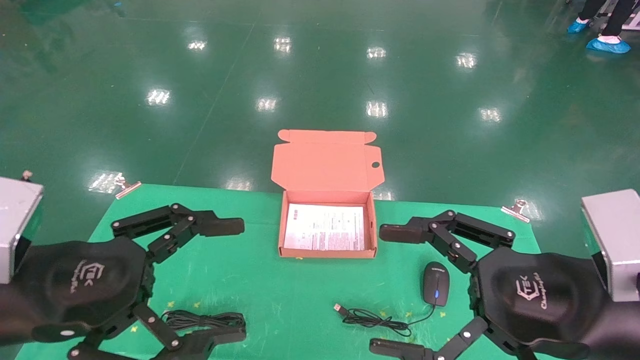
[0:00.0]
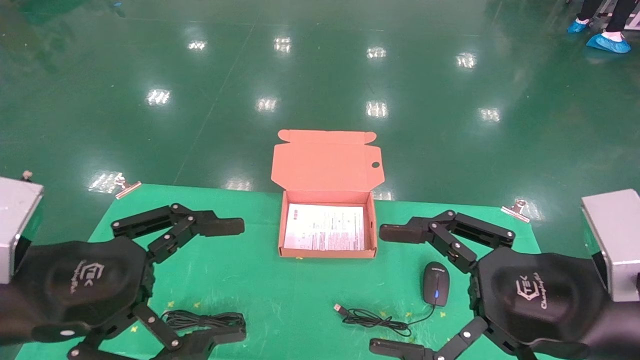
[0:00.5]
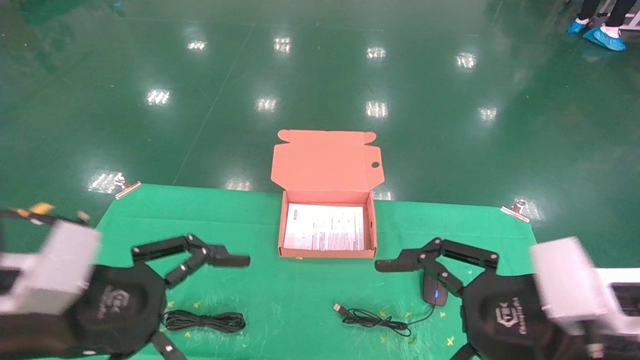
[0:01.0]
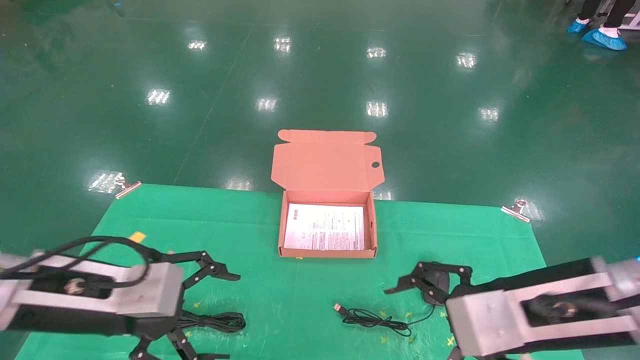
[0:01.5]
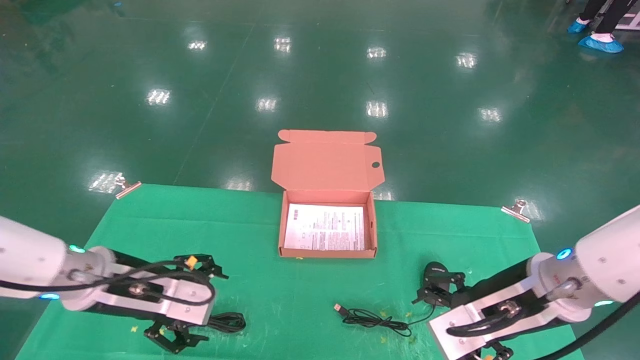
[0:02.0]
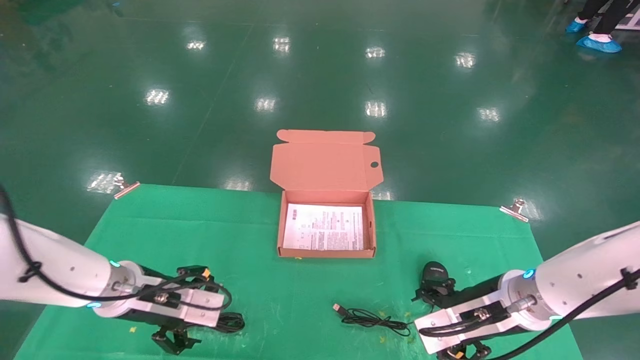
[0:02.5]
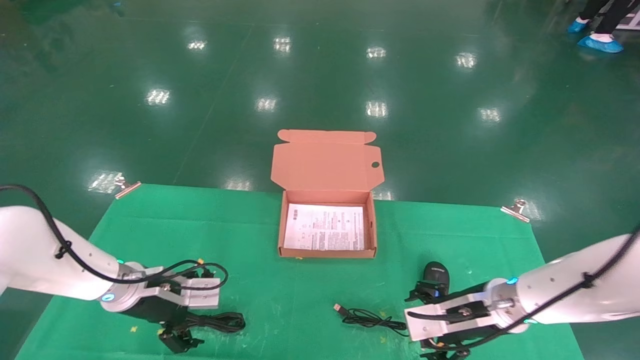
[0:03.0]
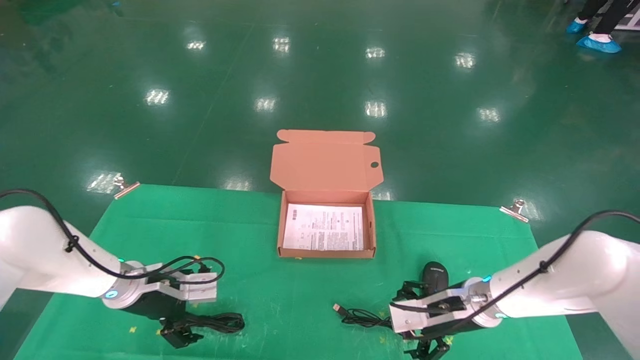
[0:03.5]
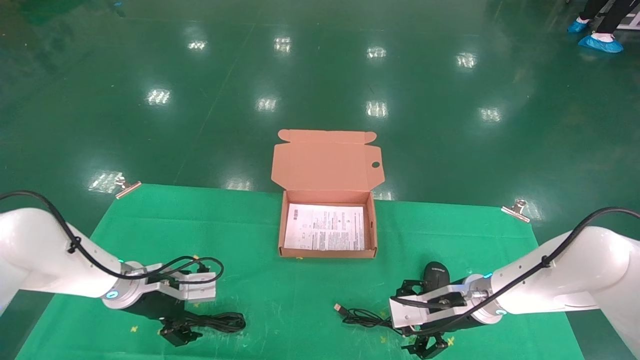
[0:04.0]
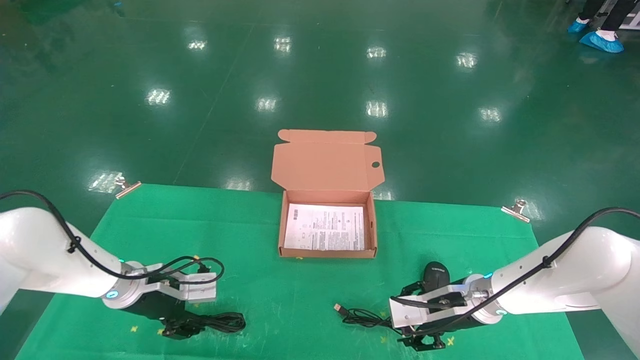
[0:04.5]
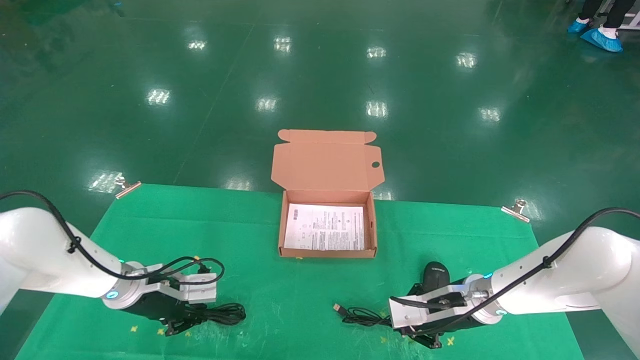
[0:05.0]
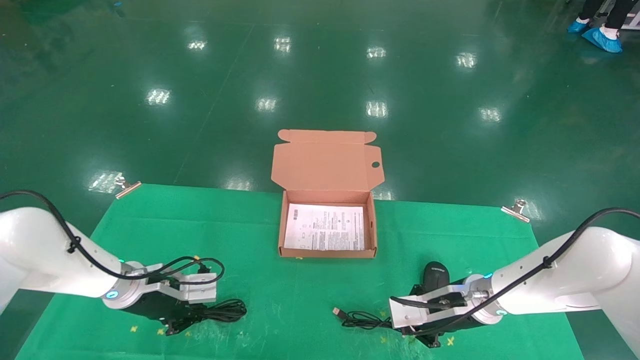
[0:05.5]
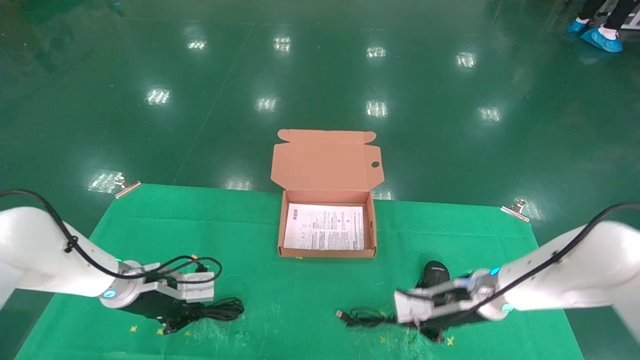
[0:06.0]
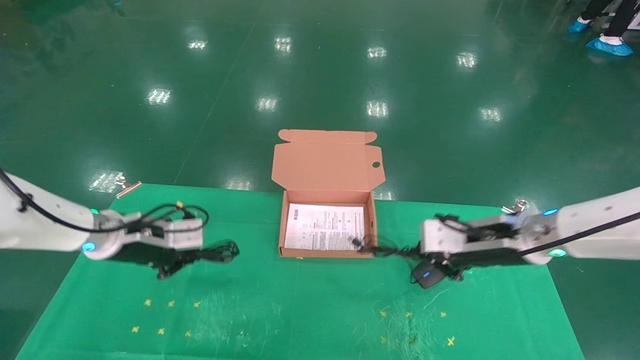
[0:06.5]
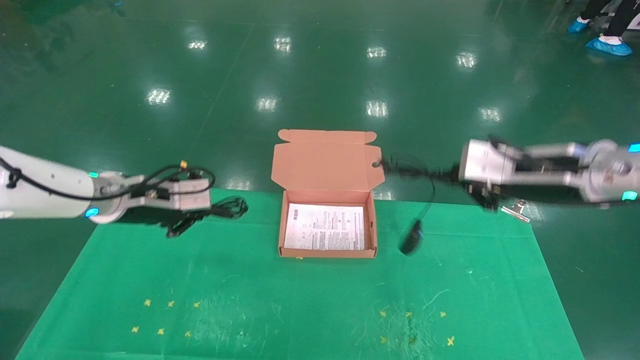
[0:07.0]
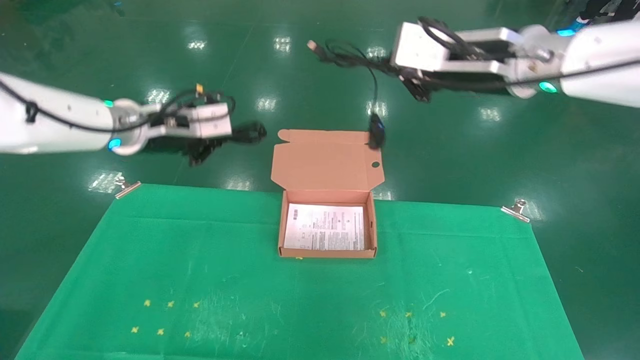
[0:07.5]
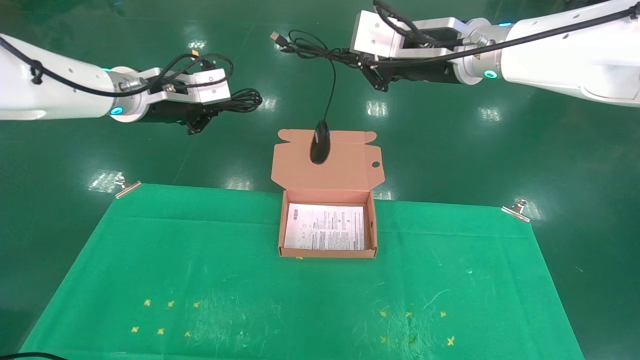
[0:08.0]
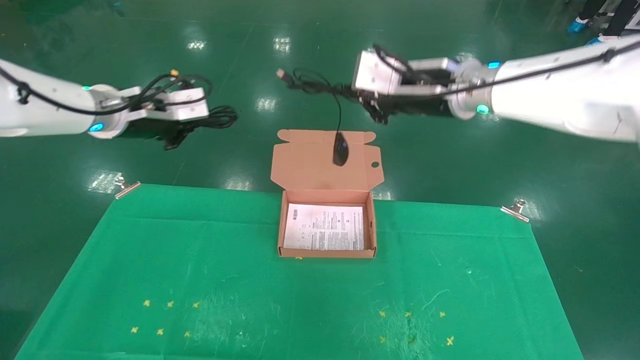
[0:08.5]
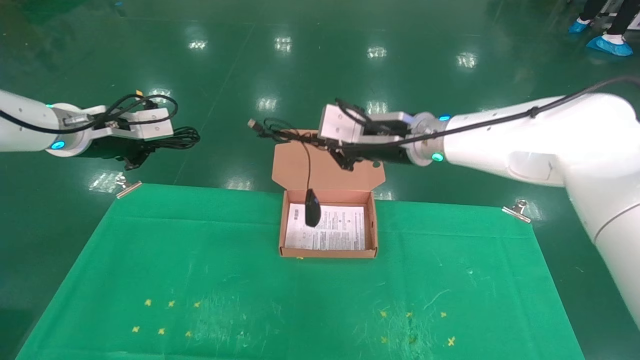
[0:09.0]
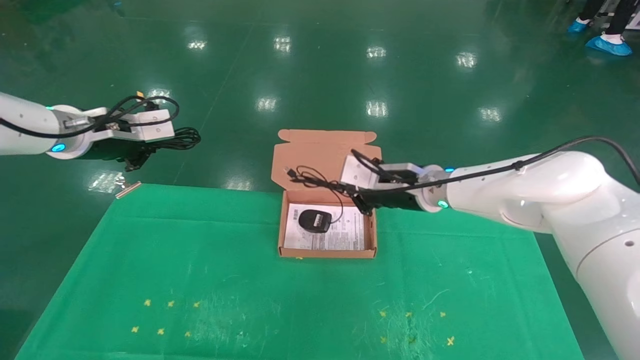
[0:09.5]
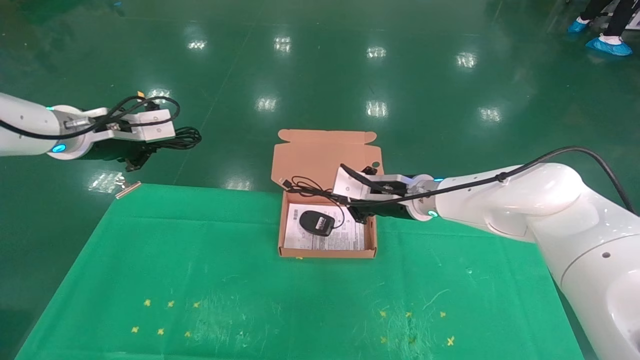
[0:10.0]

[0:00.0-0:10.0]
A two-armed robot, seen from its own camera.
Task of the whole recording: grasp data cable left put into box grasp mouse right put into box.
Step, 1.0 to 5.0 s: Grab and pick up both the mouse and power cord from the accessory packaging area at the same time.
0.0 to 2.0 s: Both grippers move forward and downward, roughly 15 cm.
2.0 to 4.0 s: Both grippers move forward and downward, roughly 15 cm.
4.0 to 6.0 s: The right gripper closes, while the left gripper closes its fingers.
6.0 to 8.0 s: Both grippers travel together upward, approximately 30 cm.
8.0 to 10.0 s: The left gripper shifts approximately 10 cm to the left; the right gripper goes some 20 cm downward.

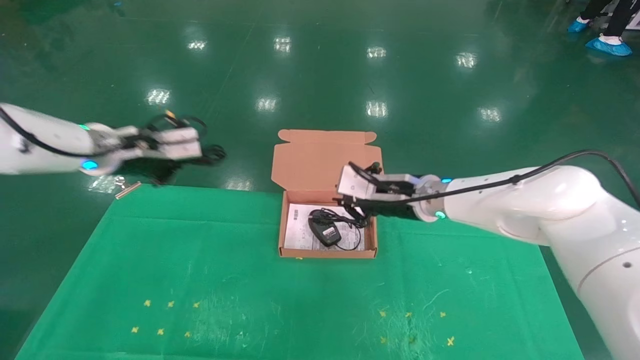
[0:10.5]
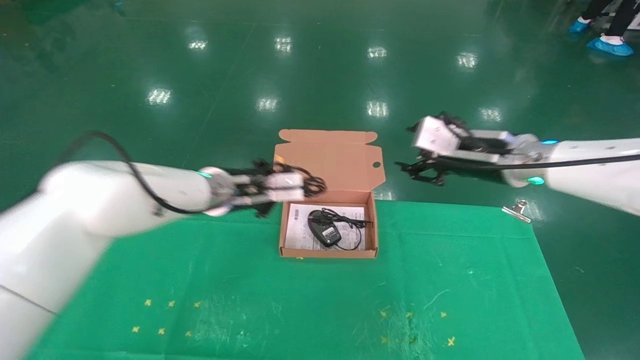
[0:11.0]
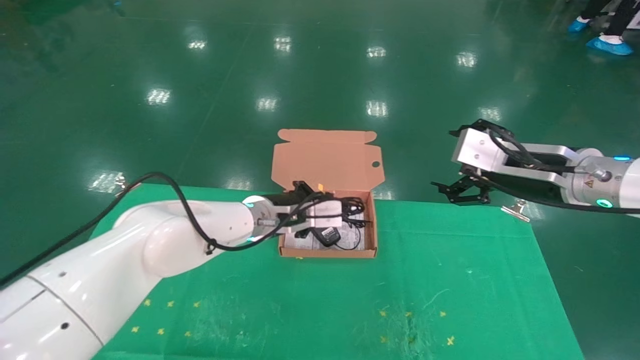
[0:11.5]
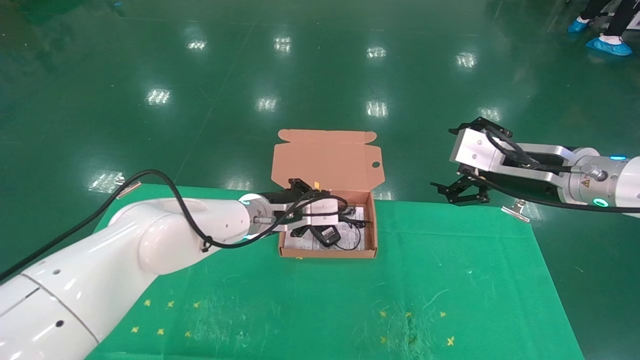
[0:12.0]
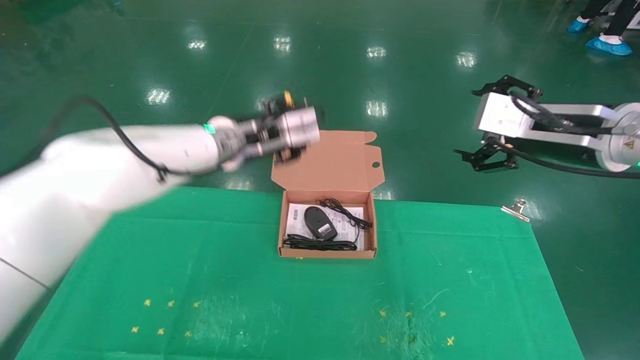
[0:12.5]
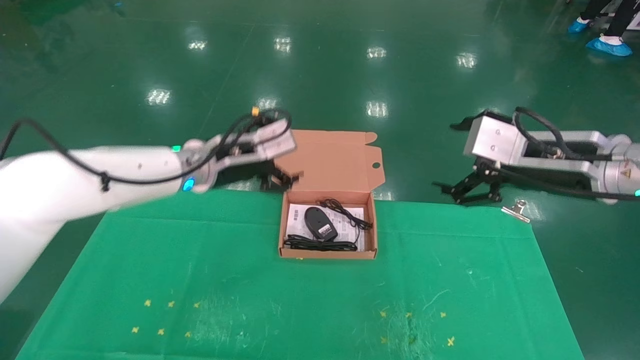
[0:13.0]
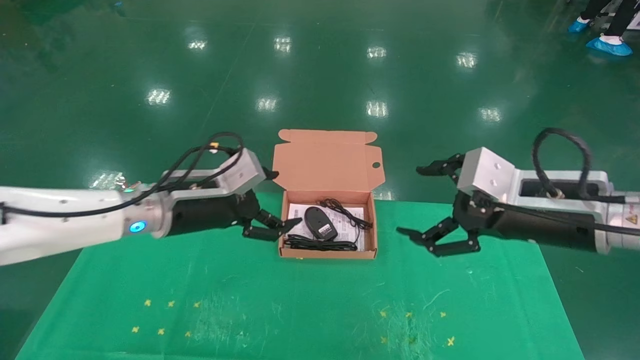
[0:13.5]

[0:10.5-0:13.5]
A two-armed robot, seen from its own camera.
Task of the whole recording: grasp data cable left put into box grasp mouse right put into box.
10.5 to 12.0 s: The right gripper heads to the right, backward and upward, covering about 20 cm, and opens up, while the left gripper shifts approximately 20 cm to the right and downward.
12.0 to 13.5 s: The right gripper shifts about 5 cm backward, while the left gripper moves to the left and backward, some 15 cm, and opens.

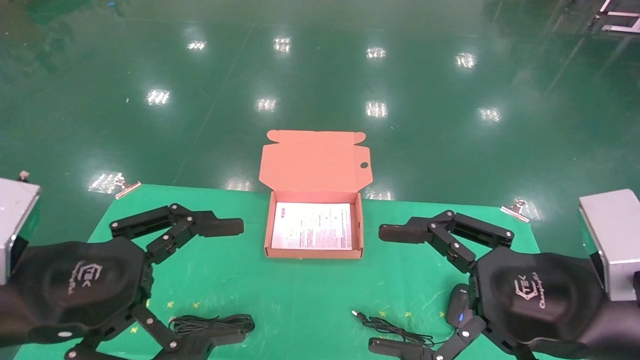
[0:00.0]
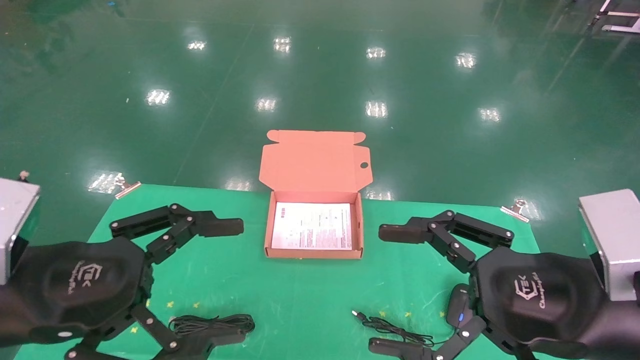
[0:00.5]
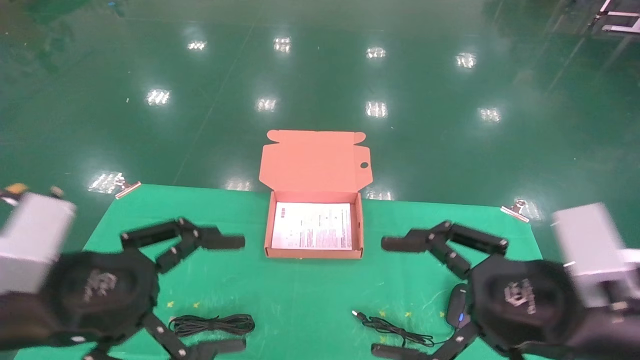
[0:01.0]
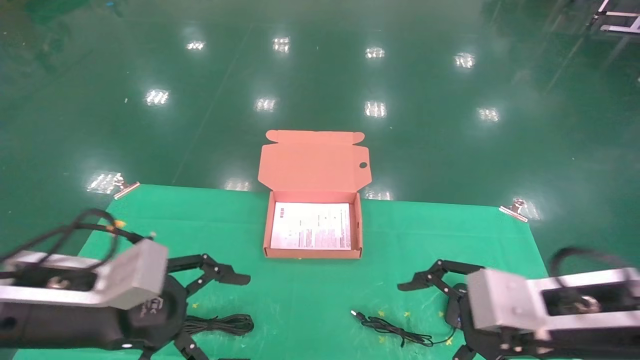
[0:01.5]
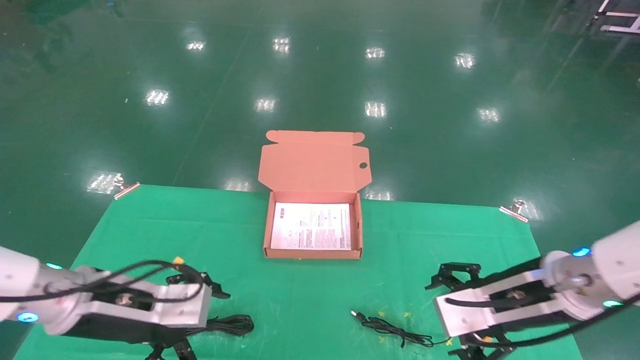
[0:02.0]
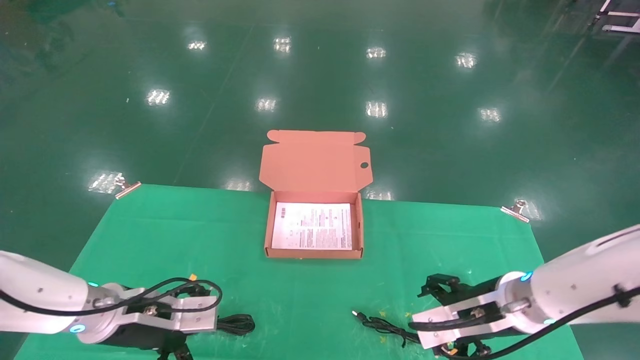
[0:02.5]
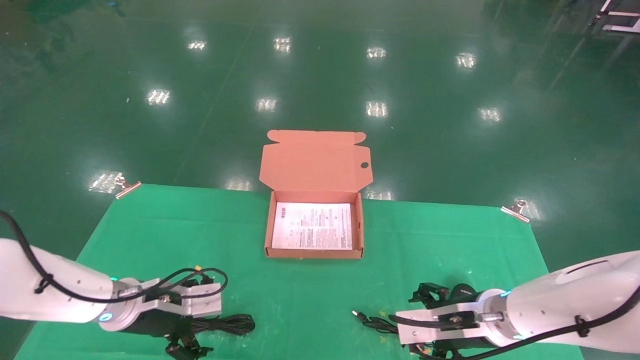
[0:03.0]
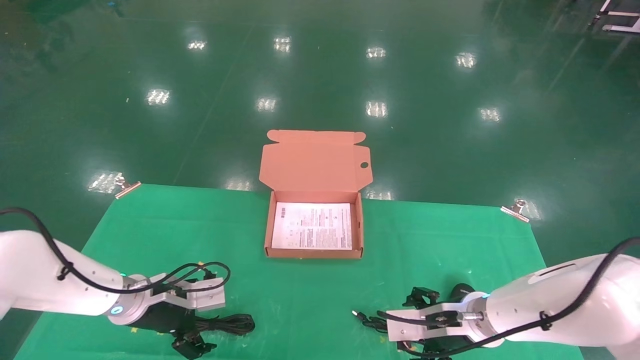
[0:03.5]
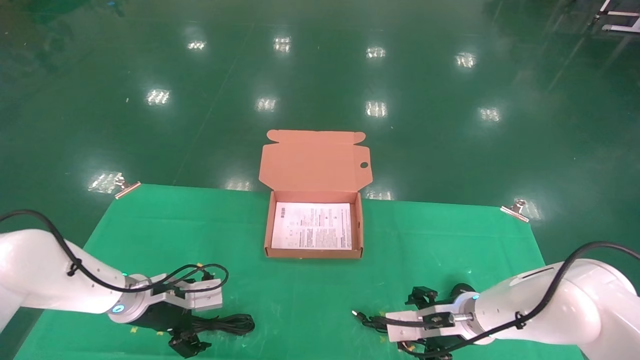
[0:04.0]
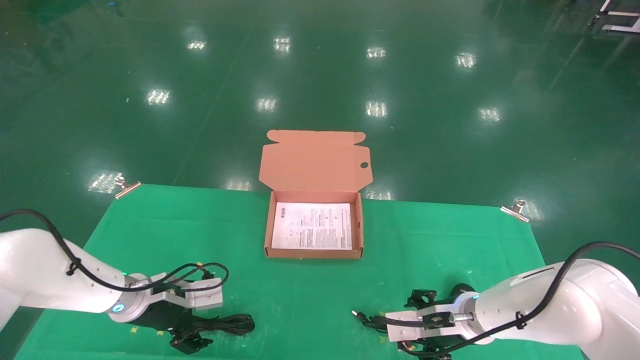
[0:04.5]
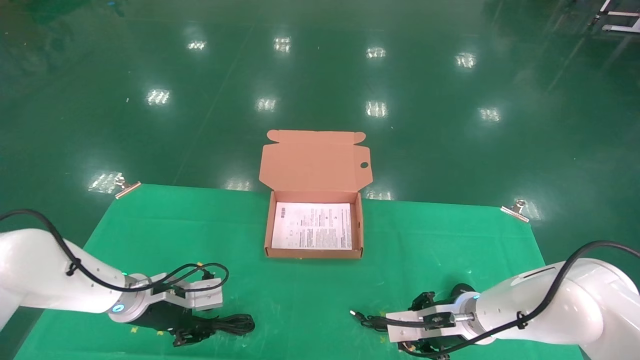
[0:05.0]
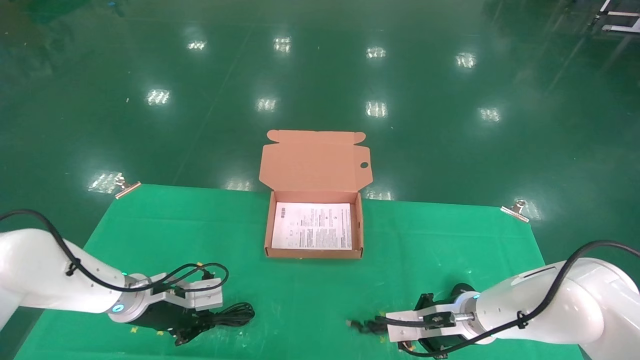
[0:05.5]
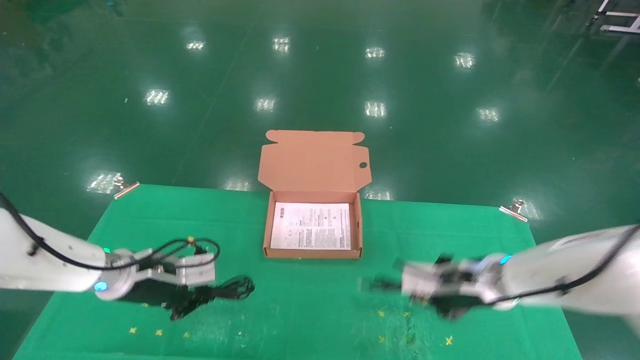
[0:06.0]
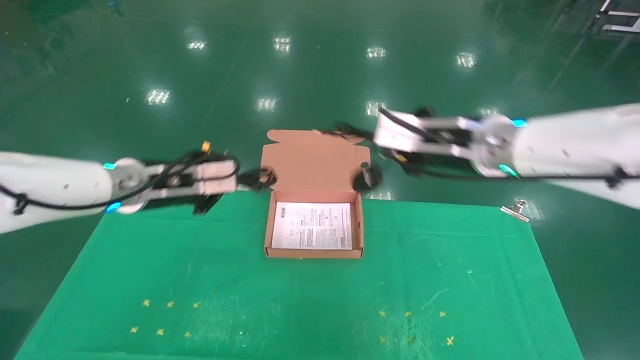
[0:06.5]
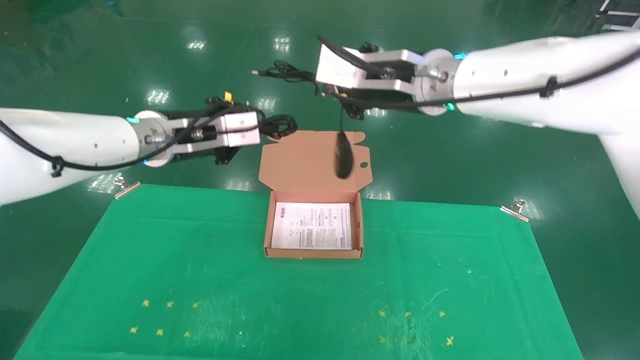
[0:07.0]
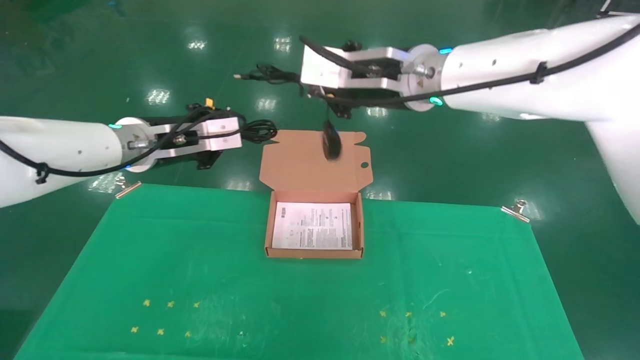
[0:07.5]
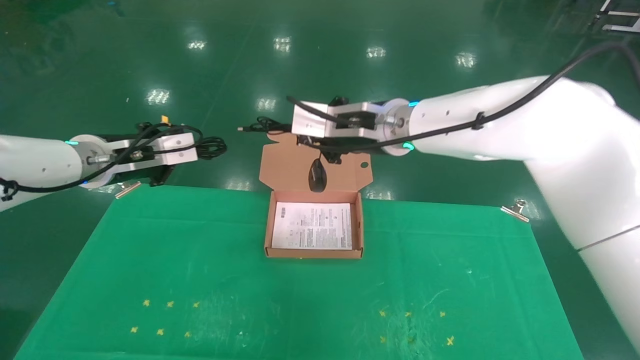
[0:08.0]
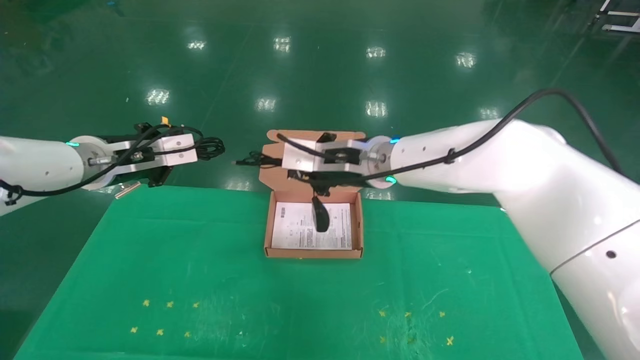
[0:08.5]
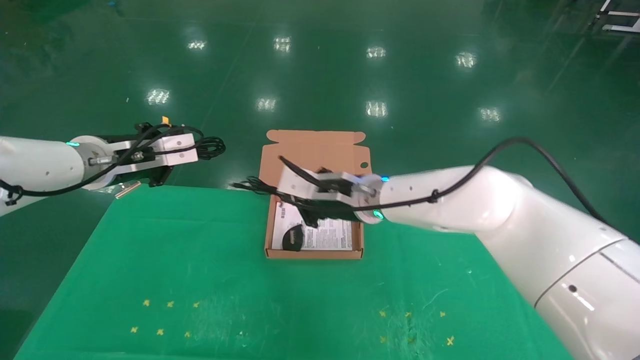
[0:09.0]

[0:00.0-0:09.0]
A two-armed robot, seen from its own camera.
Task of the whole recording: grasp data cable left put into box grasp mouse right put into box.
Step, 1.0 to 6.0 s: Grab and pick up both the mouse and power cord from the accessory packaging area at the same time.
0.0 to 2.0 s: The two grippers go roughly 15 cm forward and downward.
2.0 to 4.5 s: The left gripper is displaced forward and downward by approximately 15 cm. The right gripper is displaced downward and forward by roughly 15 cm.
4.5 to 7.0 s: Both grippers move upward, roughly 30 cm. The right gripper closes. The left gripper closes up.
7.0 to 9.0 s: The left gripper goes roughly 10 cm to the left, while the right gripper is displaced downward by approximately 15 cm.
